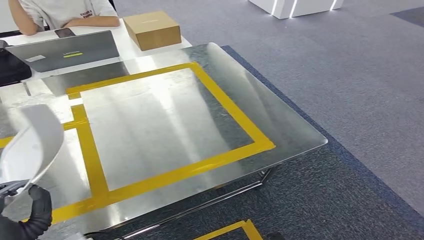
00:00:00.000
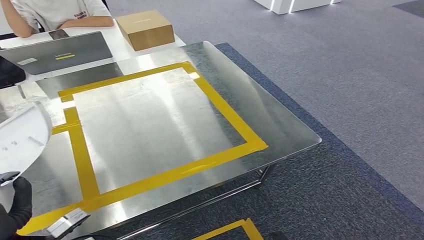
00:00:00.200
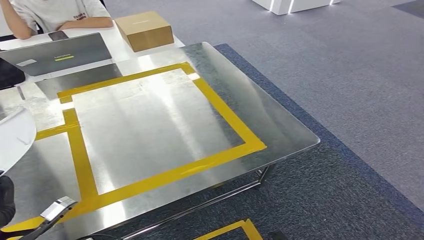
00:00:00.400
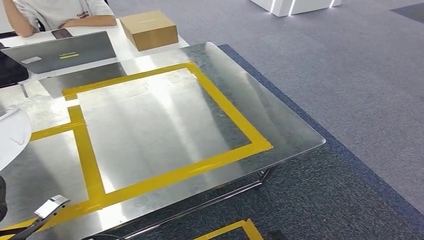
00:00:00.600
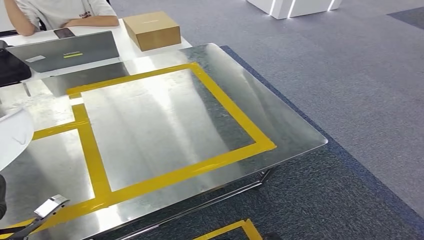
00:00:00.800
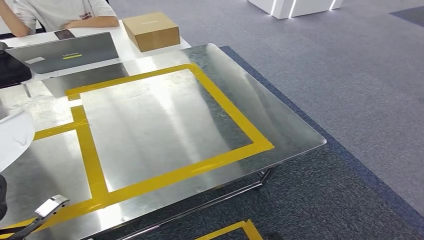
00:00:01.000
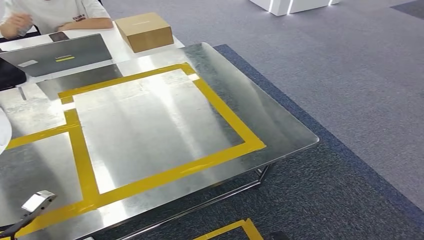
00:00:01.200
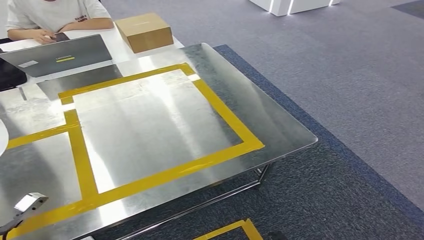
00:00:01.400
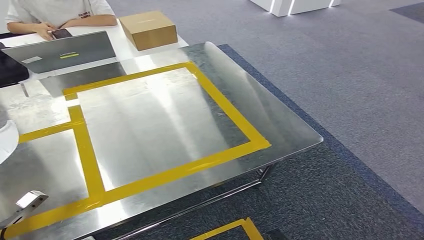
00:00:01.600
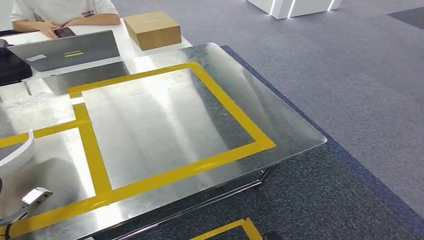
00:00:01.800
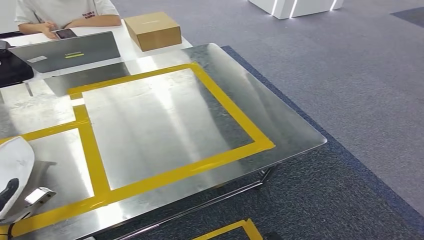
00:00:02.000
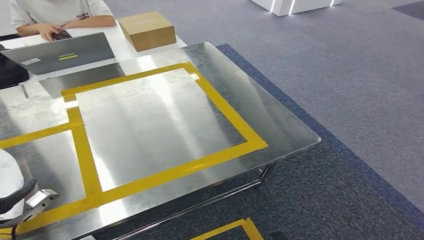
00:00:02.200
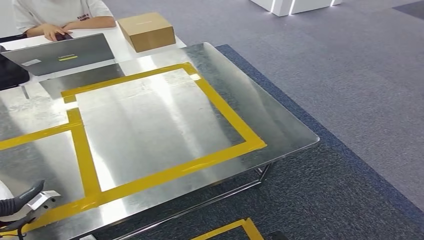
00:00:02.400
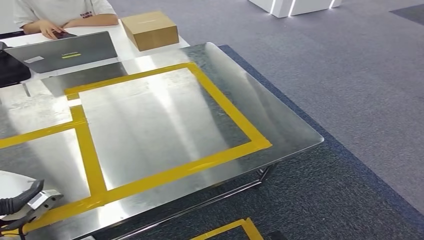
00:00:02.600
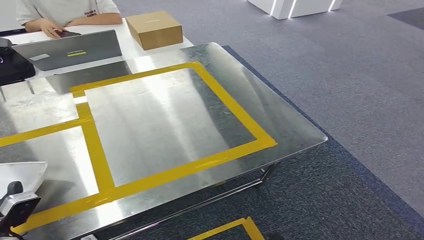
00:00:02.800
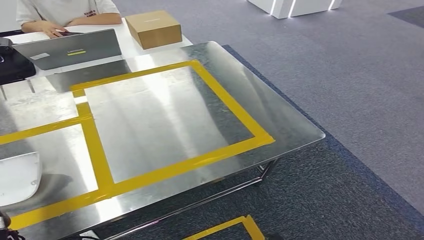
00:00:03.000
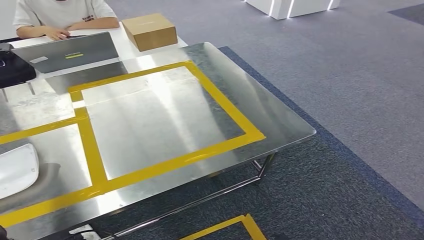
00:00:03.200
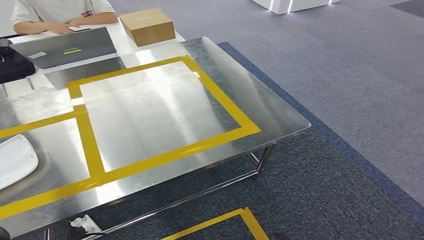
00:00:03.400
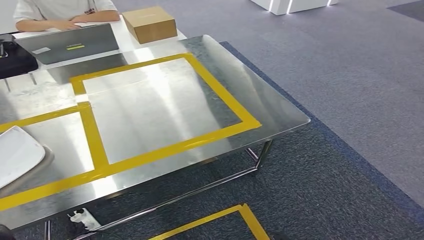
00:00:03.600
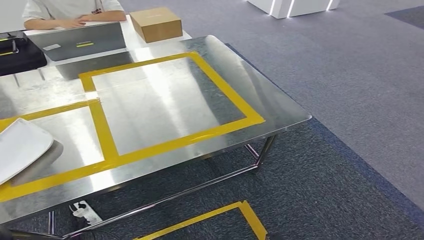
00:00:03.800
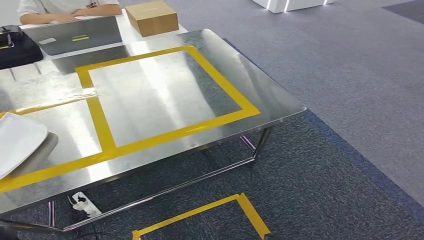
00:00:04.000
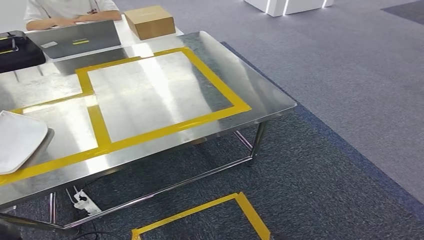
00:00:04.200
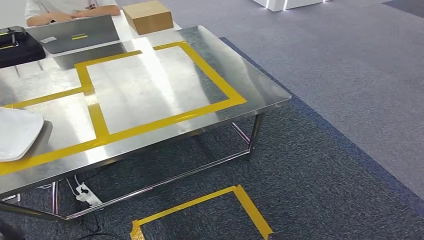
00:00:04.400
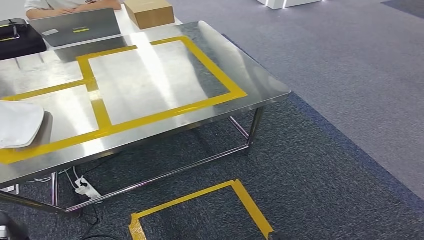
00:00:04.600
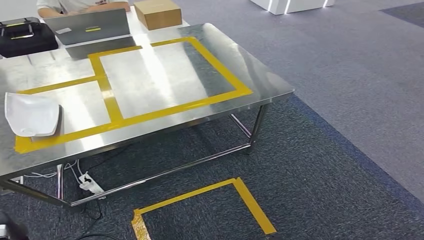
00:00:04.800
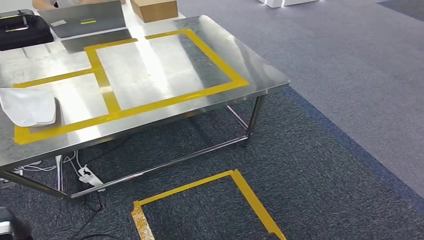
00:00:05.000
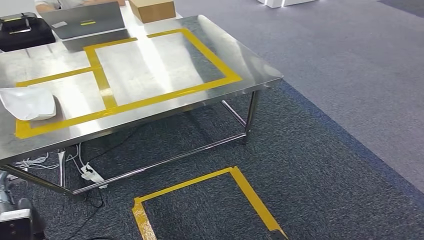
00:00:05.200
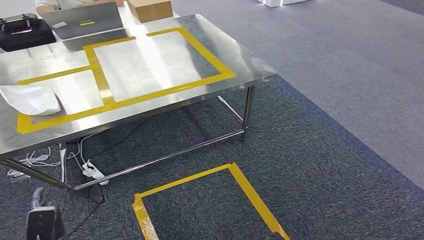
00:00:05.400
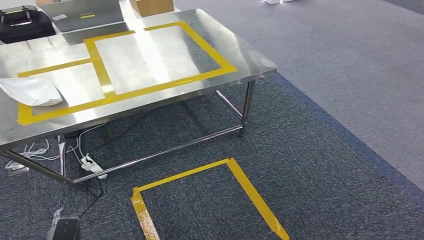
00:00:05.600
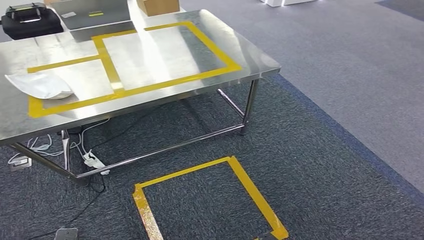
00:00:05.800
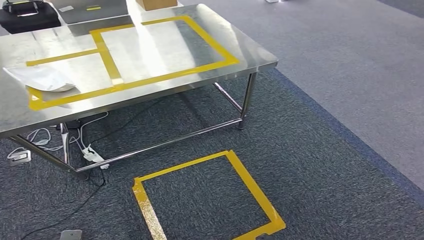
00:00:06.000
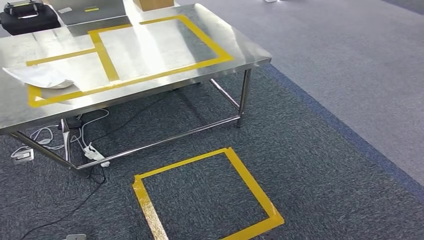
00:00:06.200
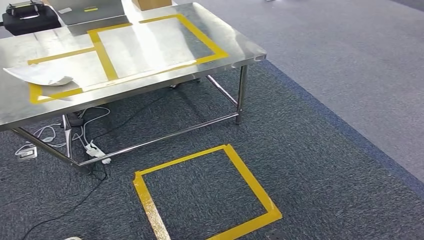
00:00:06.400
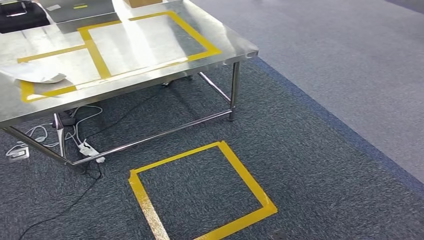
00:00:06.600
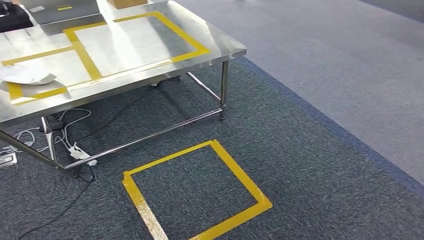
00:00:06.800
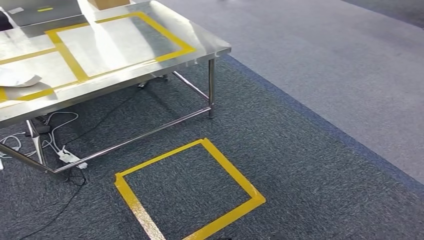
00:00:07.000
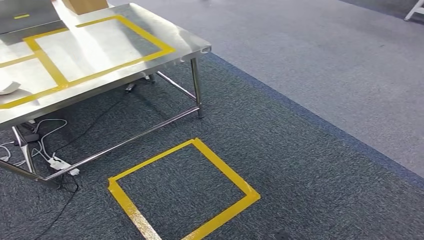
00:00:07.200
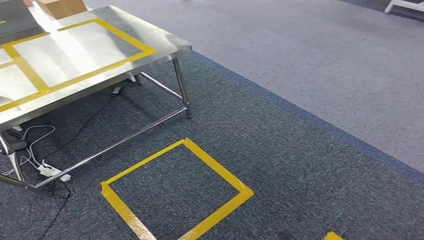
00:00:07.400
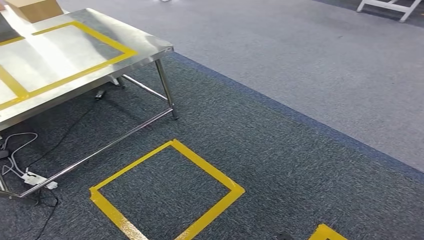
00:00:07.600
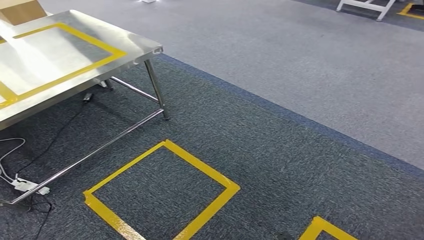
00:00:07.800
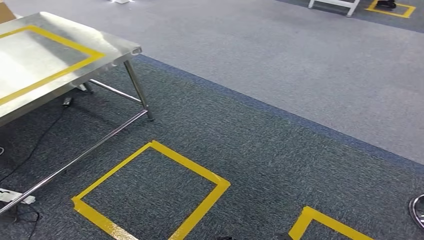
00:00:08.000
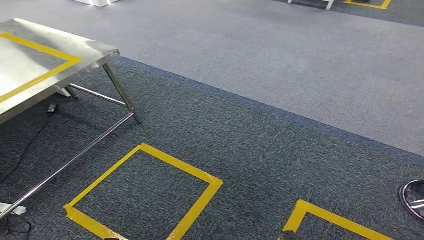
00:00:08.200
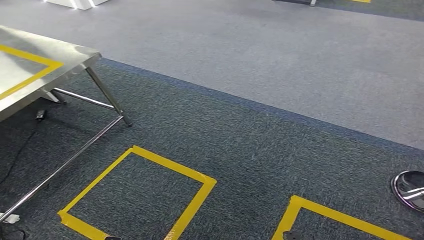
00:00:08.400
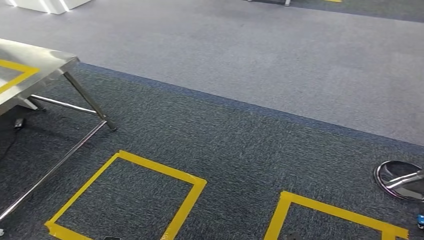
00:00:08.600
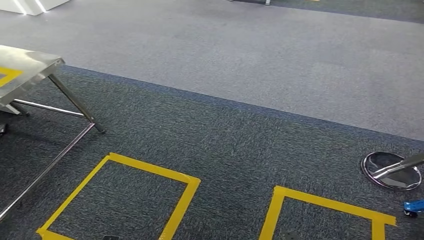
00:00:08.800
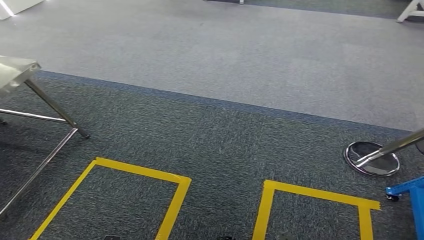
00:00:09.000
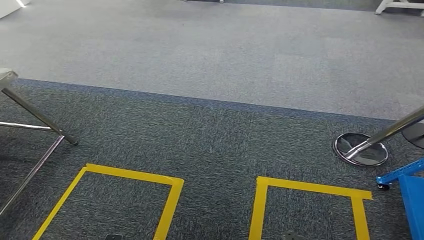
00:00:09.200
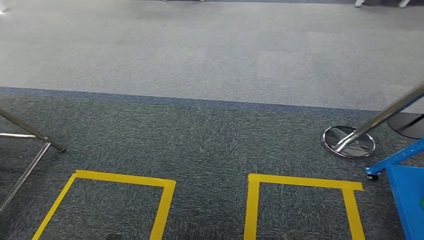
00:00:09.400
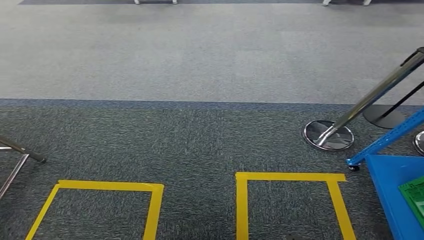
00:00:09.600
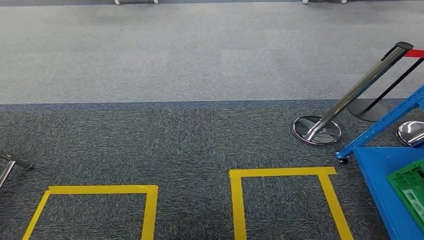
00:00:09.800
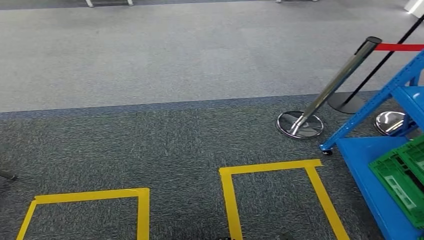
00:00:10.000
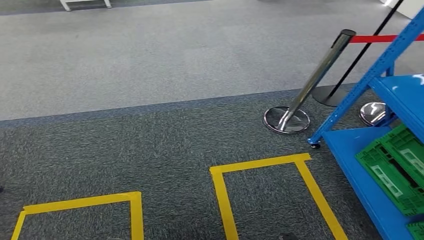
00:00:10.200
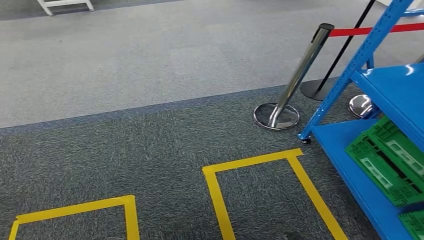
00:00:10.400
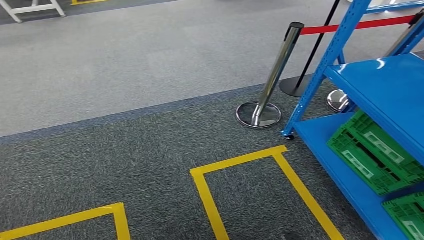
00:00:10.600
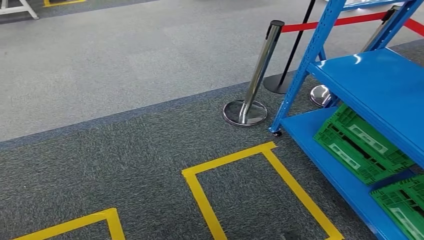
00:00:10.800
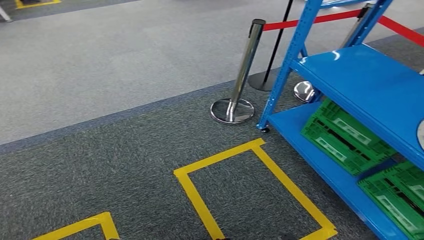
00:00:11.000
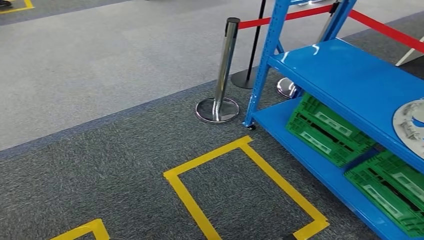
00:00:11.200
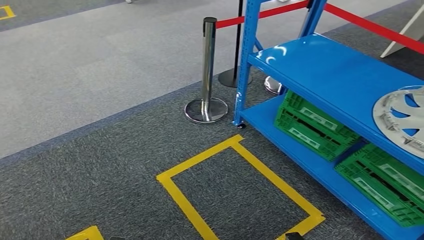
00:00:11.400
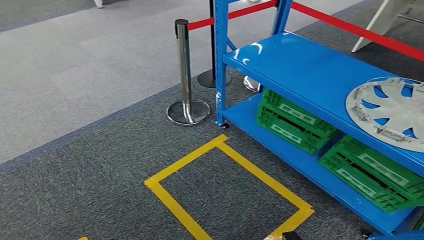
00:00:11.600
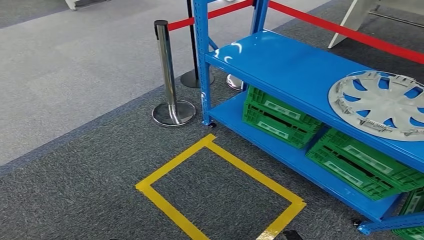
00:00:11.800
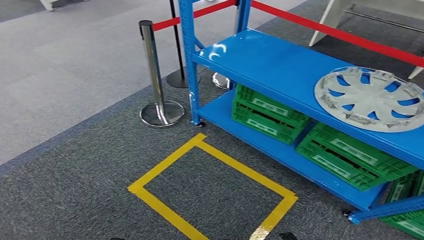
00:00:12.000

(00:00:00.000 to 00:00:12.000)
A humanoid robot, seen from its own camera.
Step, 00:00:00.000 - 00:00:04.000: Insert the small parts into the corresponding holes on the workbench.
00:00:00.000 - 00:00:01.600: The left hand travels to the left by some 15 cm.
00:00:01.600 - 00:00:03.000: The left hand is displaced to the right by roughly 10 cm.

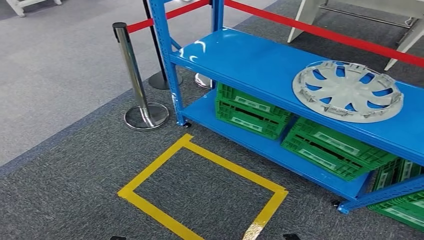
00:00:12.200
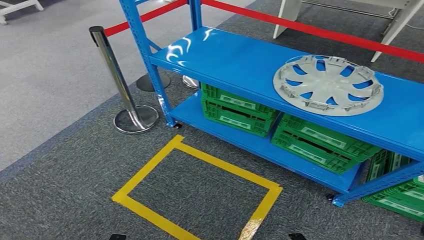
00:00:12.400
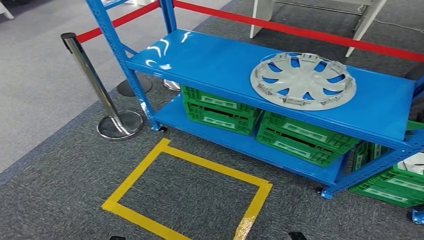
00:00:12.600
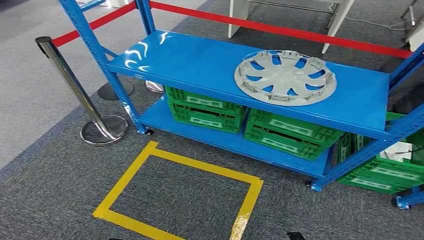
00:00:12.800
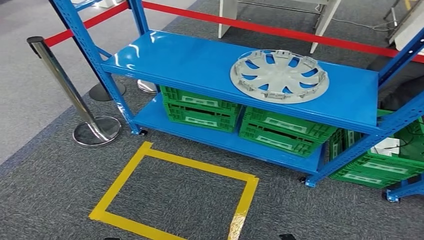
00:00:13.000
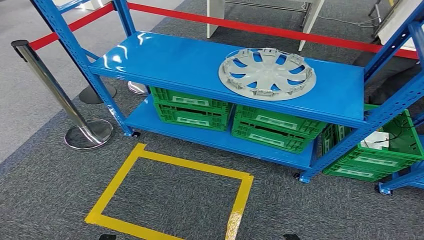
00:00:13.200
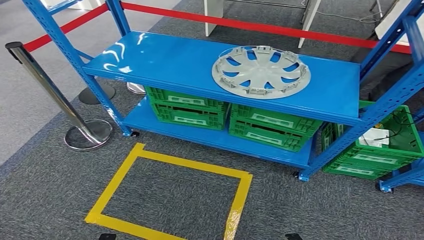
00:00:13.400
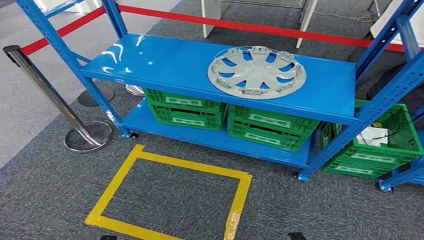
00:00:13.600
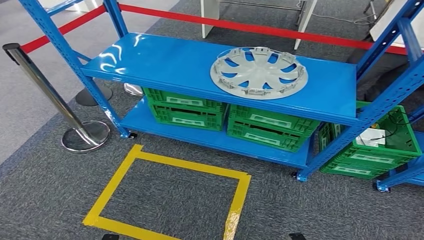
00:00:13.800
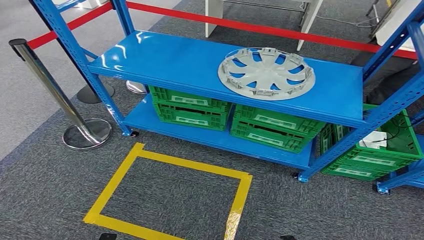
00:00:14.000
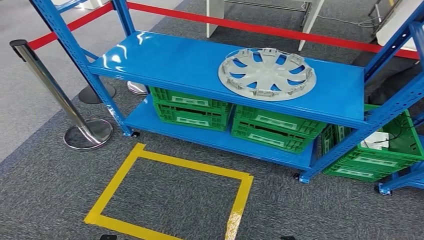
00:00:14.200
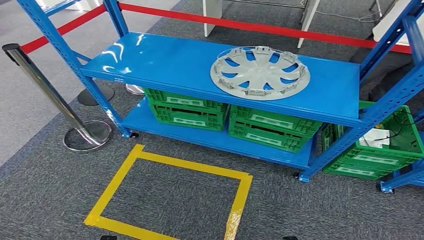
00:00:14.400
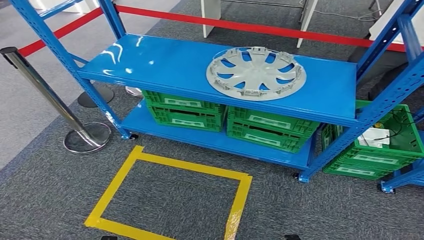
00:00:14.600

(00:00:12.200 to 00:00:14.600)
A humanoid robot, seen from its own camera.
Step, 00:00:12.200 - 00:00:14.600: Move to the initial position of the workbench.
00:00:13.400 - 00:00:14.600: Both hands stay about where they are.
